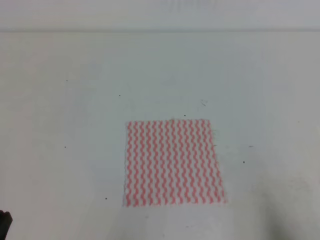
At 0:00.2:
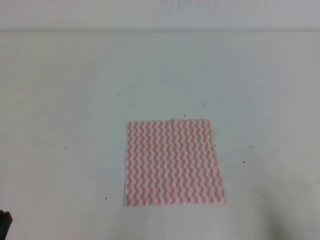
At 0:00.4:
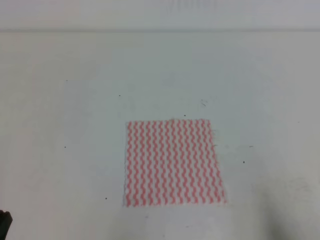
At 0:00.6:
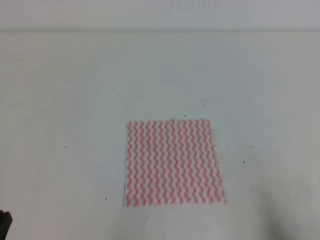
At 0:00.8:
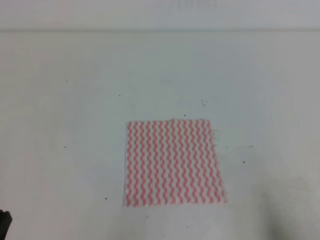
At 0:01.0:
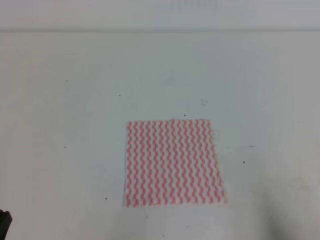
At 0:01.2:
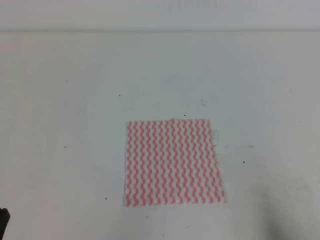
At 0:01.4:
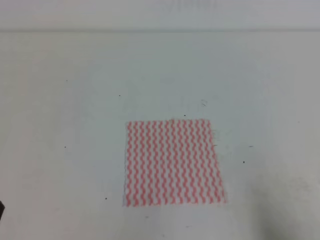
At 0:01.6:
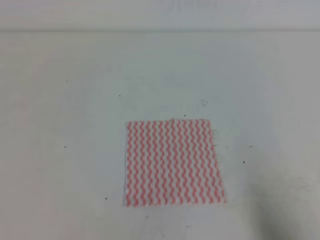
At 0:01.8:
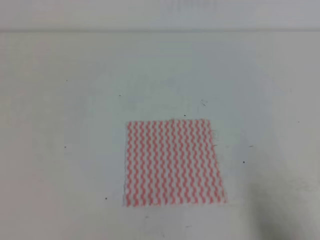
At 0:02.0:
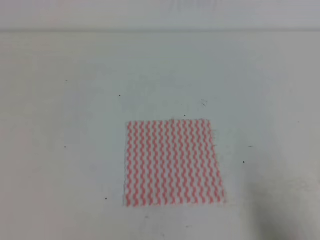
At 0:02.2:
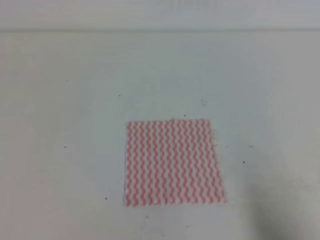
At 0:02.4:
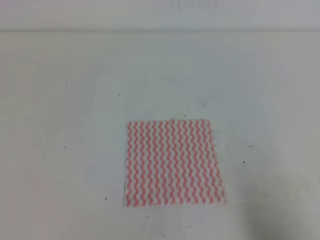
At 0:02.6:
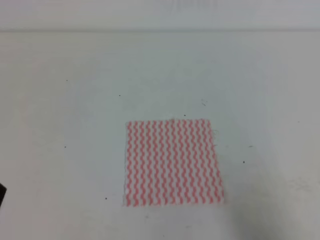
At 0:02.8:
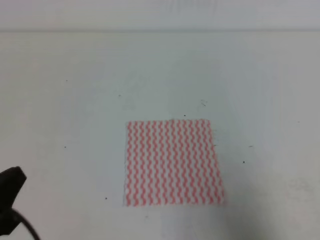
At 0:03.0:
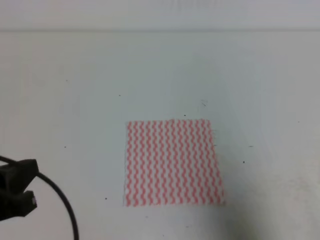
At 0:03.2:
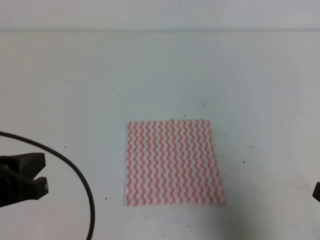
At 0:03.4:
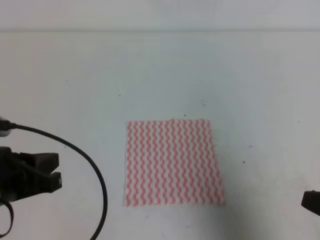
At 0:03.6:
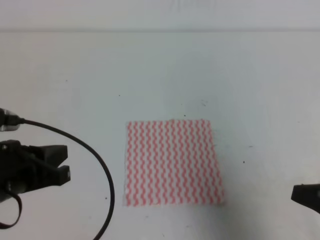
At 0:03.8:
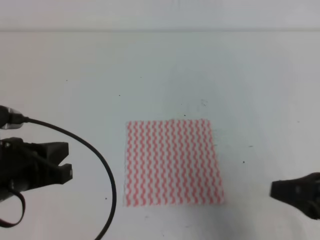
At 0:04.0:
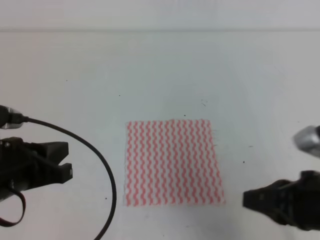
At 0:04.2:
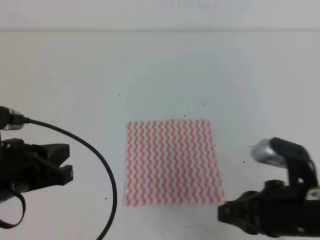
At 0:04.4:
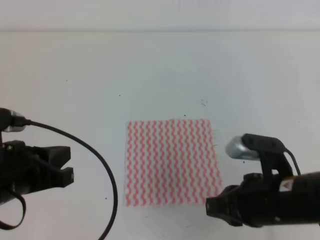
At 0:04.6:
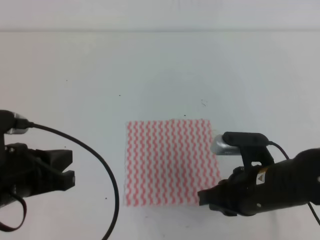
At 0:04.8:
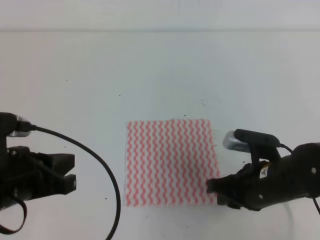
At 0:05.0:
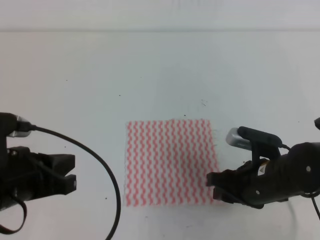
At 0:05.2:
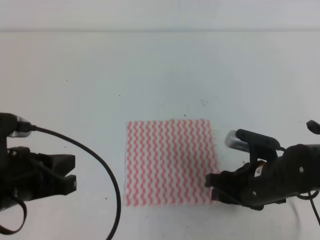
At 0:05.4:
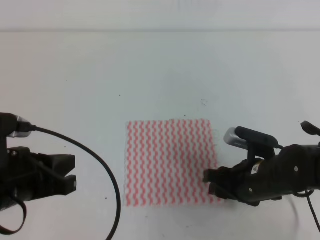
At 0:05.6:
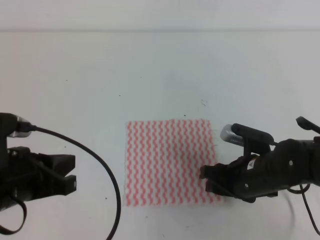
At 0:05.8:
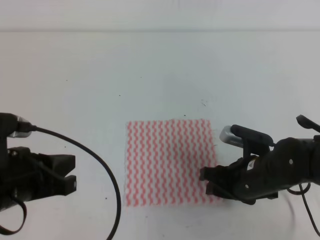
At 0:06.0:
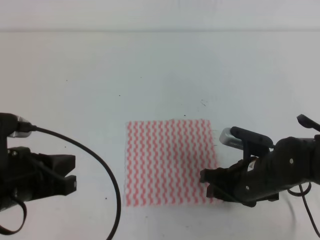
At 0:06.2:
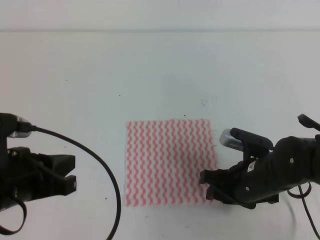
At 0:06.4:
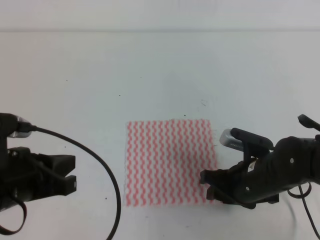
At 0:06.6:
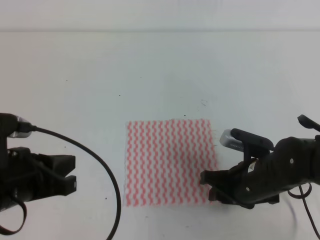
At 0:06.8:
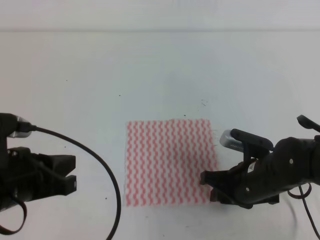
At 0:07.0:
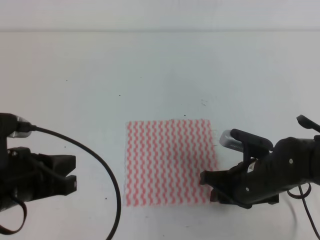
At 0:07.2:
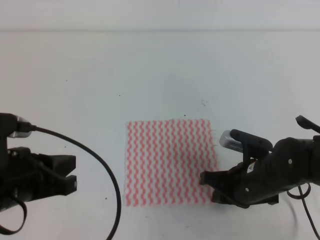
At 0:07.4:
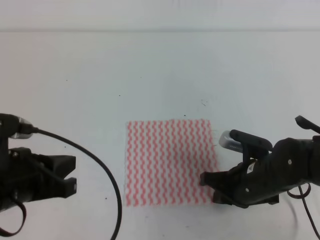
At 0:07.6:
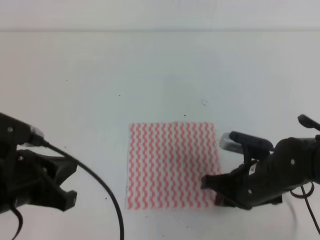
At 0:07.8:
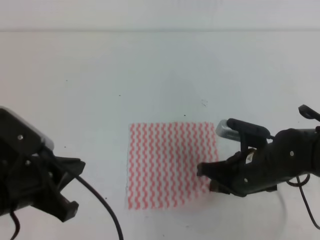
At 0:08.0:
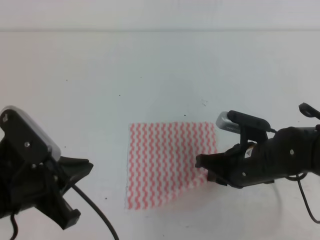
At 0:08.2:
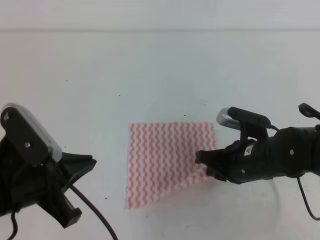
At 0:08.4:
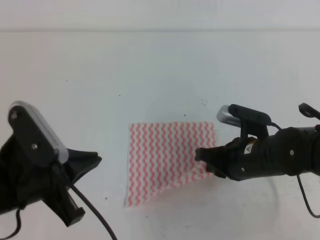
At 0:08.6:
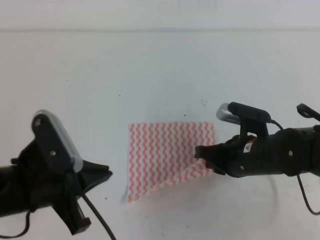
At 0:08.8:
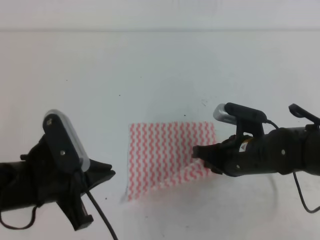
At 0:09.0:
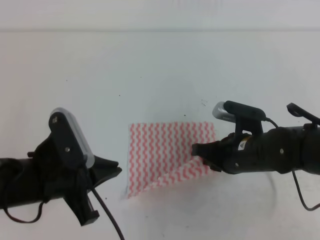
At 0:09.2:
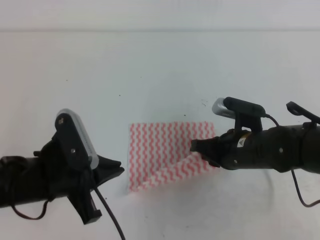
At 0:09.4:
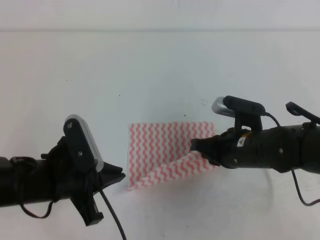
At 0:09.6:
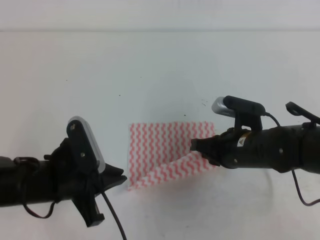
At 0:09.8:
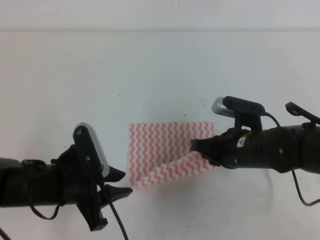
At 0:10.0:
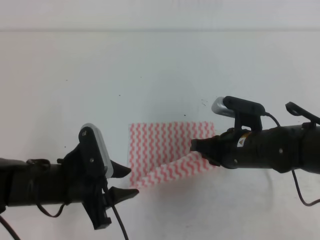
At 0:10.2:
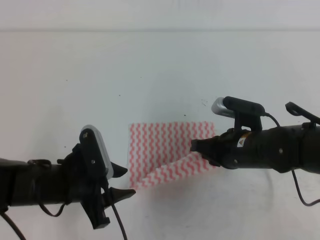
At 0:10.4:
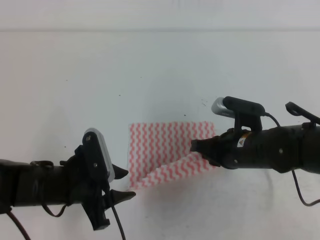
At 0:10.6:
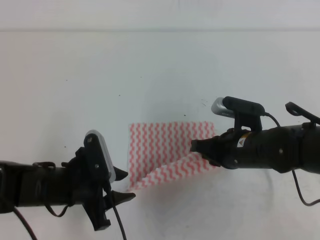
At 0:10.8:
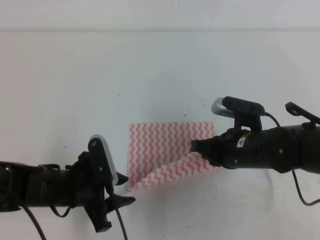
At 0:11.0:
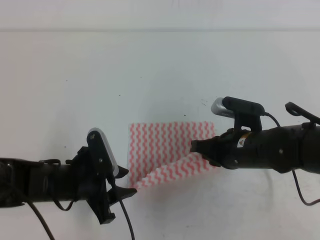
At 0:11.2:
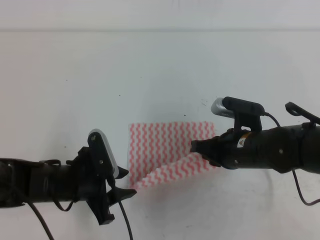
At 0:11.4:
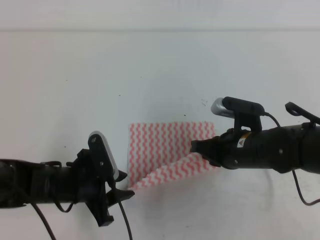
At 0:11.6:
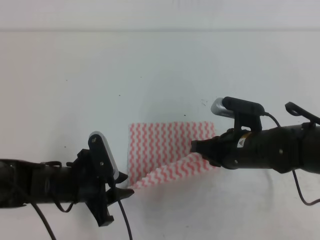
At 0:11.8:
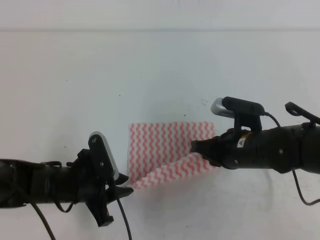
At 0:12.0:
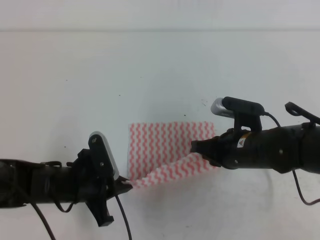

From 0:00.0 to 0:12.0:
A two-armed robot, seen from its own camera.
From 0:01.6 to 0:03.0: The right gripper heads upward, covering some 5 cm; the left gripper is displaced upward and forward by some 10 cm.
From 0:03.0 to 0:04.4: The left gripper is displaced forward by approximately 5 cm. The right gripper heads to the left and forward, covering approximately 15 cm.
From 0:04.4 to 0:06.0: The right gripper shifts about 10 cm downward and forward, and opens.
From 0:06.0 to 0:07.6: The right gripper closes up.
From 0:07.6 to 0:09.0: The left gripper ends up some 5 cm from where it was.
From 0:09.0 to 0:10.4: The left gripper goes some 5 cm downward, and opens its fingers.
From 0:10.4 to 0:12.0: The left gripper closes its fingers.

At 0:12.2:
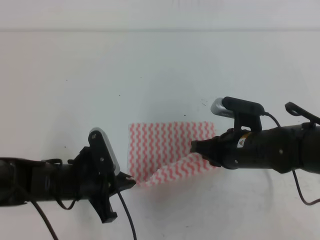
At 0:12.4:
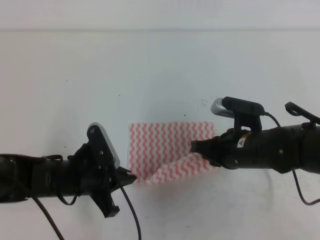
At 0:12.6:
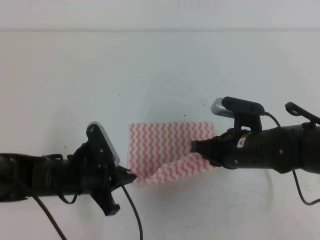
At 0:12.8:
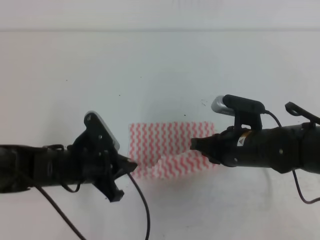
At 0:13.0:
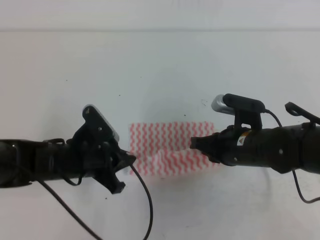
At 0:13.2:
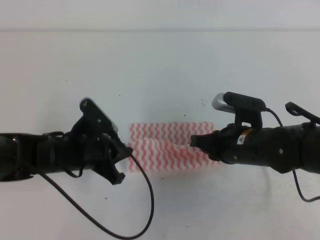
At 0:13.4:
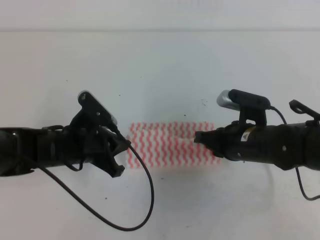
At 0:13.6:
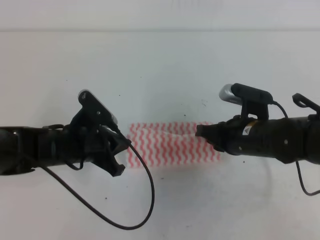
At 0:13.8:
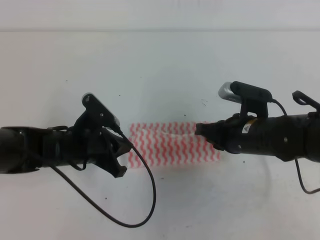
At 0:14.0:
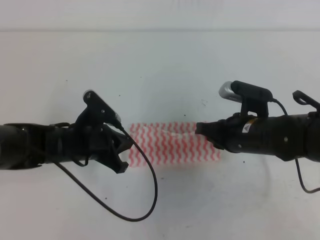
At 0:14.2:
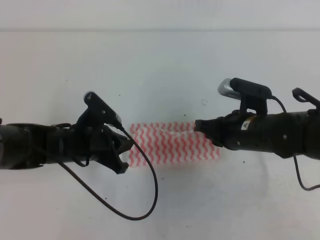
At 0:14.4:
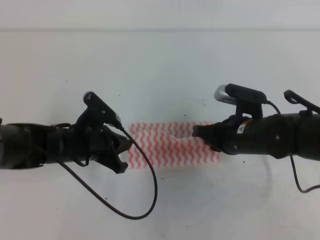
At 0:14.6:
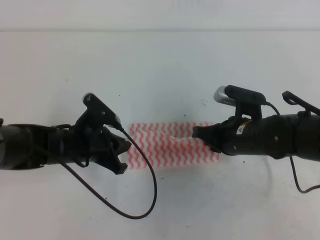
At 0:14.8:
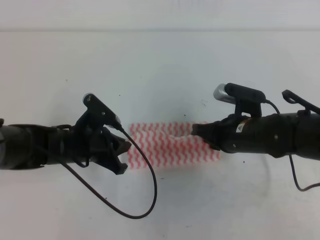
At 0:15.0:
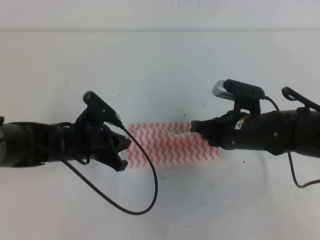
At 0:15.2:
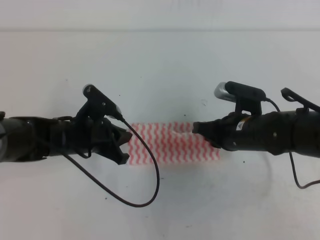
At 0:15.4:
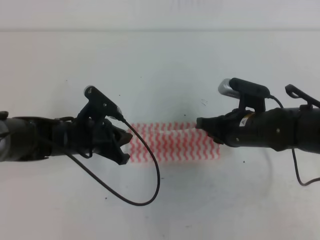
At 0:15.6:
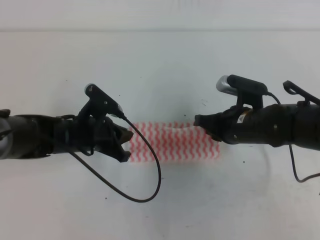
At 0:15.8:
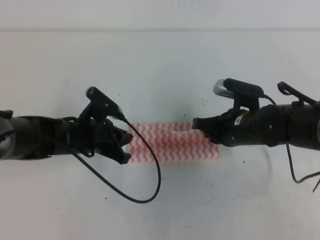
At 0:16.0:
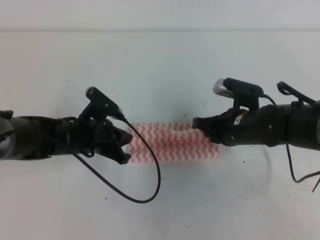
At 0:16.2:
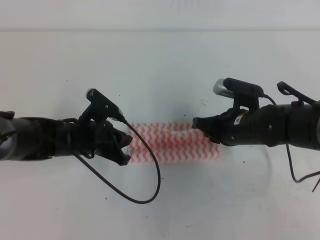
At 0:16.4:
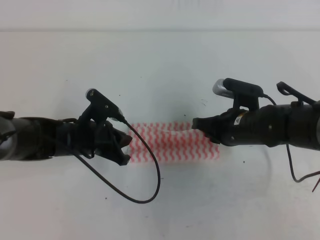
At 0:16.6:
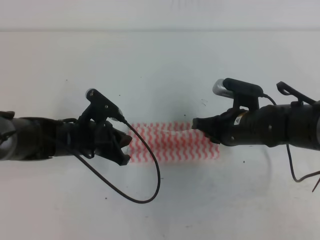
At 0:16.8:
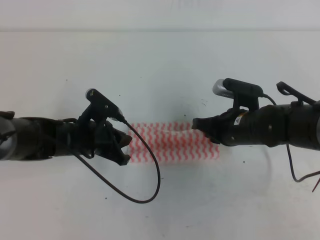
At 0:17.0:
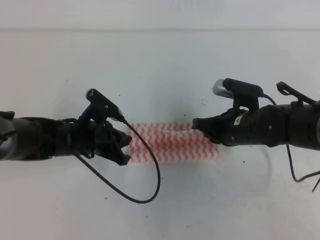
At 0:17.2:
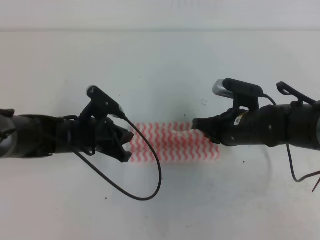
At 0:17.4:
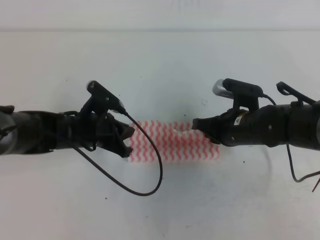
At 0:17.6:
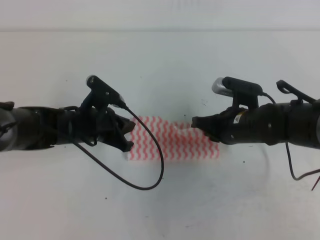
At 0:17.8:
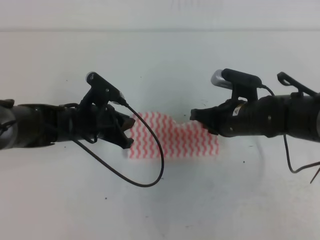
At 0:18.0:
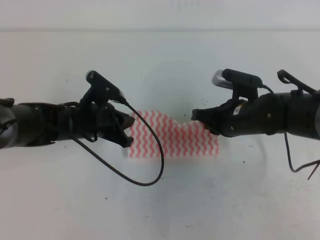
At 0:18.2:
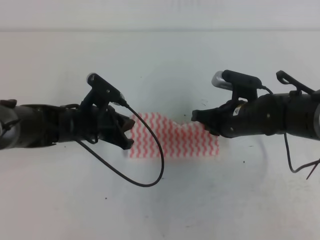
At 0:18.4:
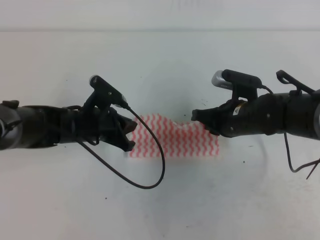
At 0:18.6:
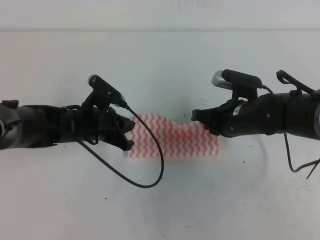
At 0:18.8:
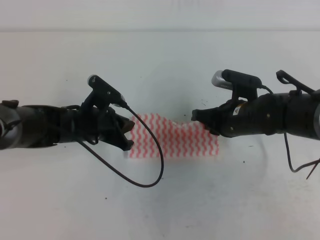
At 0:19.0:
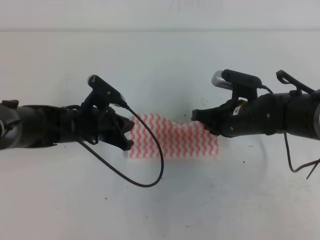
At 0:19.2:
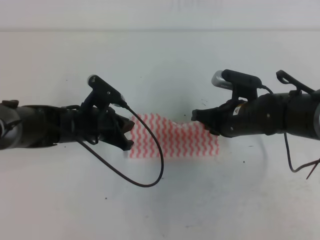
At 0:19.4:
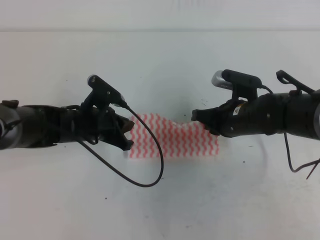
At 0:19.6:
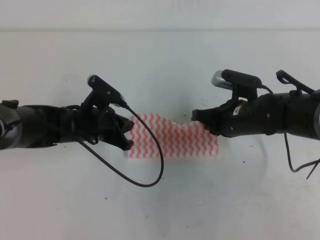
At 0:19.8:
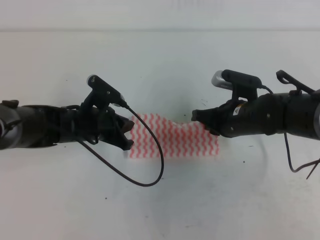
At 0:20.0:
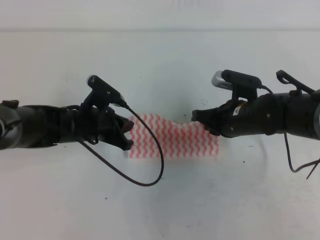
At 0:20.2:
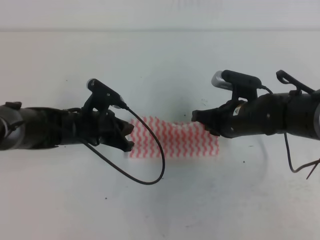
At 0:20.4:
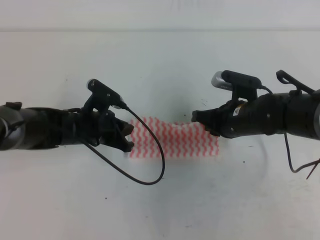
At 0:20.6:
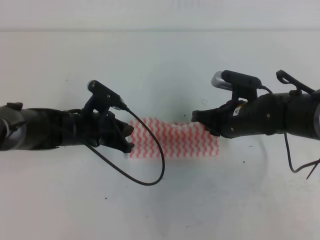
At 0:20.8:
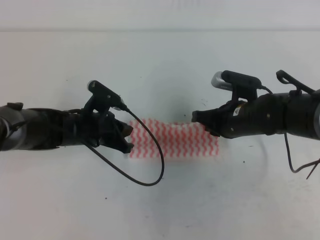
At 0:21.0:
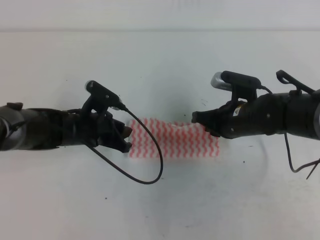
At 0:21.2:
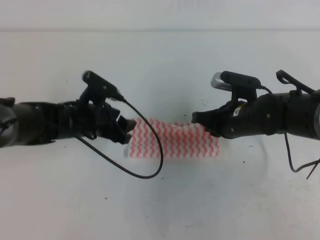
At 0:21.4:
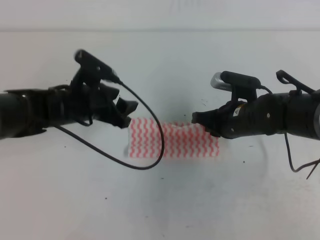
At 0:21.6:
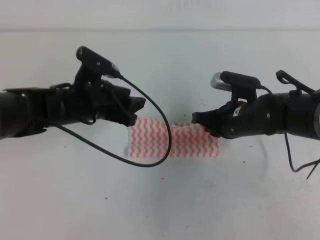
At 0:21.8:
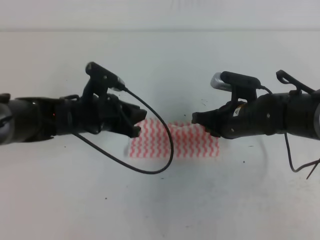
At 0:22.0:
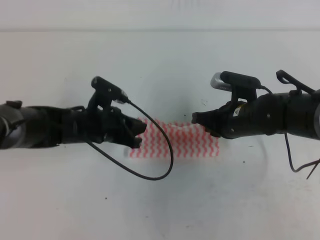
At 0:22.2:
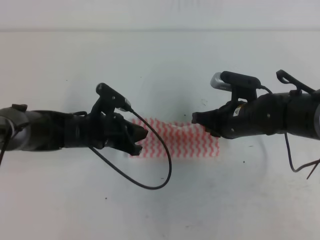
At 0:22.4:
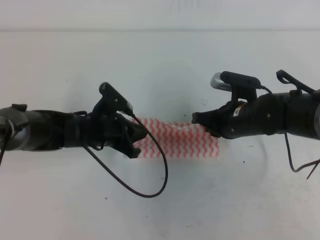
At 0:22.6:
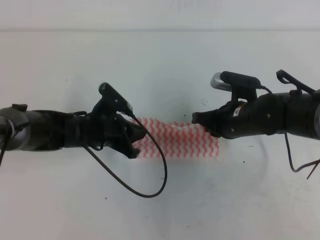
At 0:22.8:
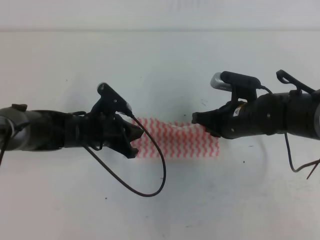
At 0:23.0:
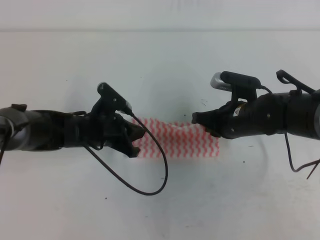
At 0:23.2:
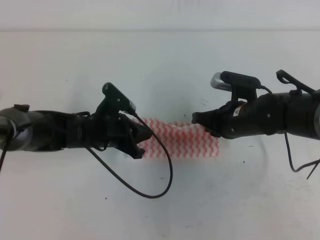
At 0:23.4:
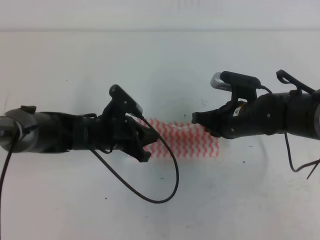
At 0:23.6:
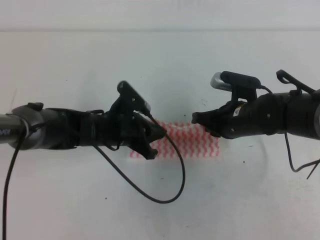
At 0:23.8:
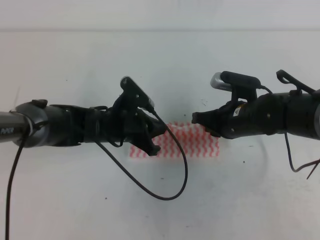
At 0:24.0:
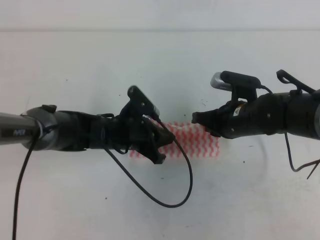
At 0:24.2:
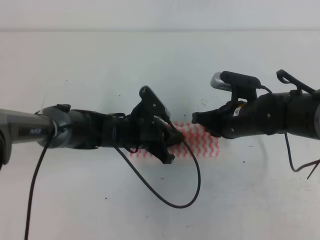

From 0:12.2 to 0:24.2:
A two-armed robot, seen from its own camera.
From 0:12.2 to 0:13.8: The left gripper travels forward by some 5 cm.
From 0:13.8 to 0:18.2: The grippers stay close to where they were, moving slightly.
From 0:18.2 to 0:19.8: Both grippers stay put.
From 0:19.8 to 0:21.2: The left gripper opens.
From 0:21.2 to 0:22.6: The left gripper closes up.
From 0:22.6 to 0:24.2: The left gripper heads to the right, covering roughly 5 cm.
